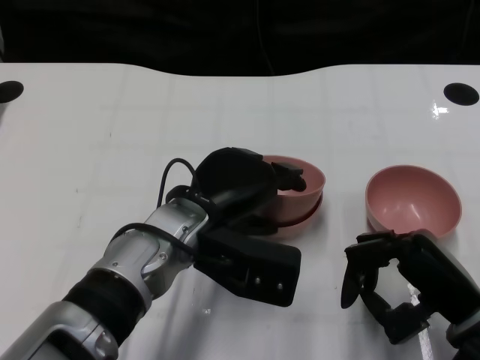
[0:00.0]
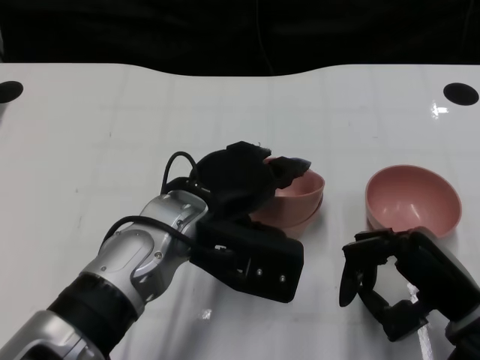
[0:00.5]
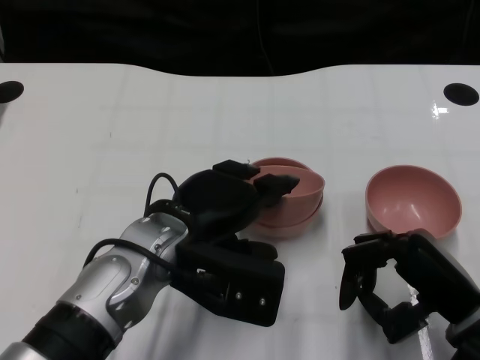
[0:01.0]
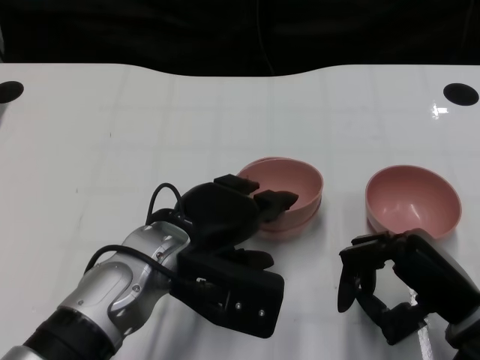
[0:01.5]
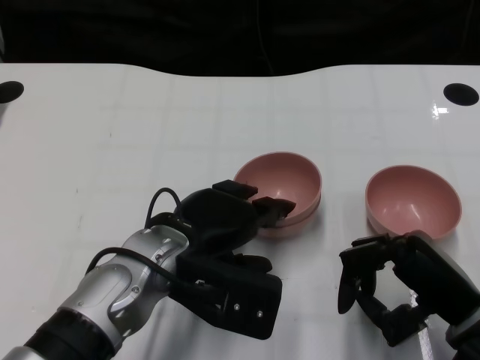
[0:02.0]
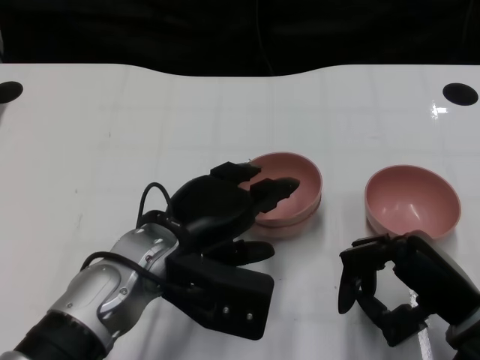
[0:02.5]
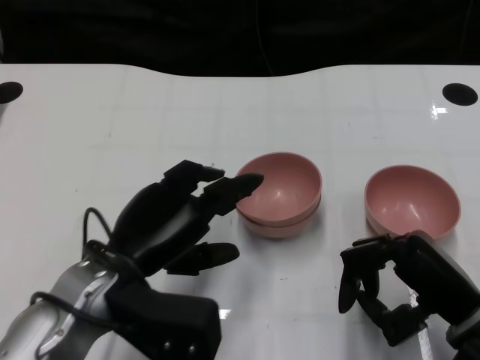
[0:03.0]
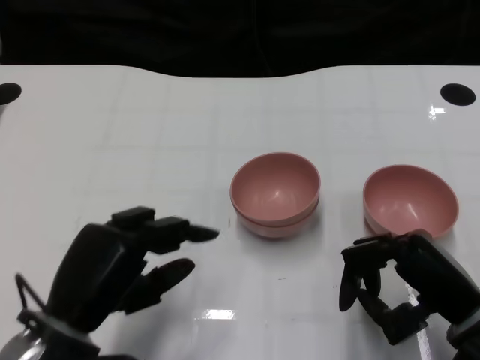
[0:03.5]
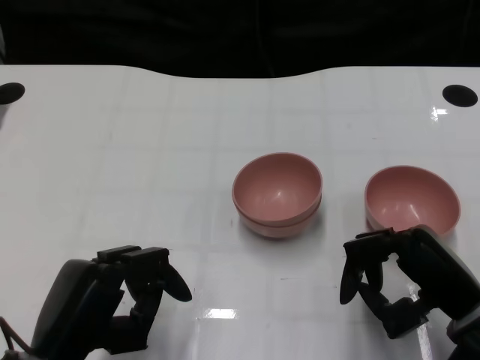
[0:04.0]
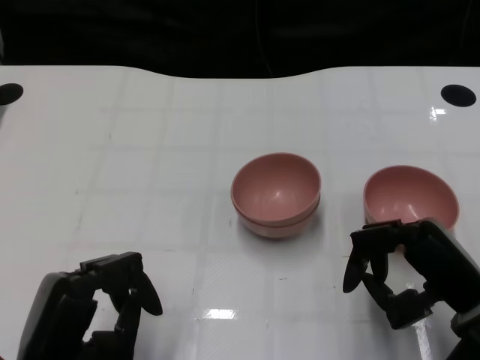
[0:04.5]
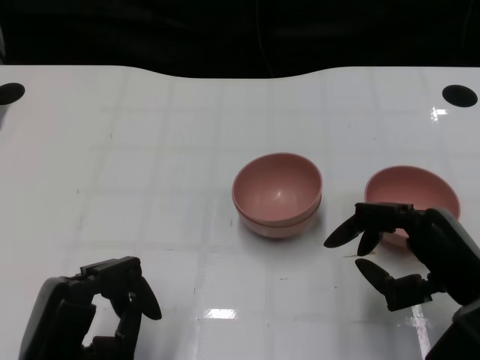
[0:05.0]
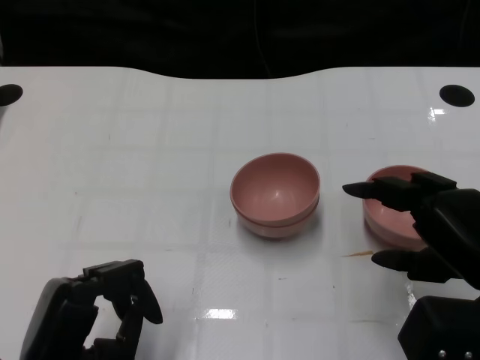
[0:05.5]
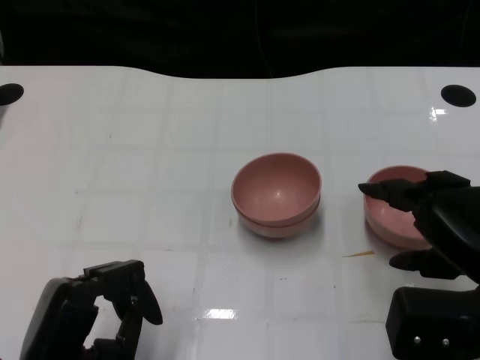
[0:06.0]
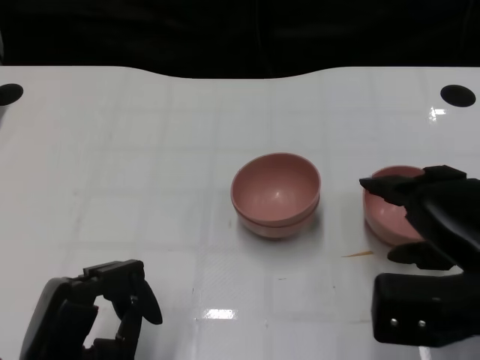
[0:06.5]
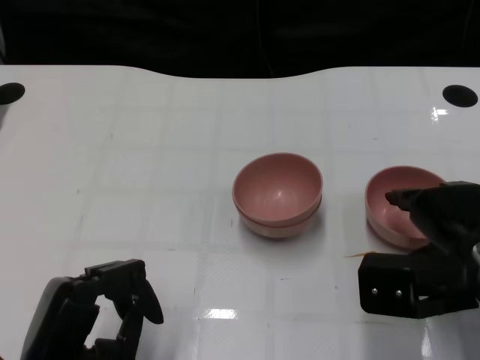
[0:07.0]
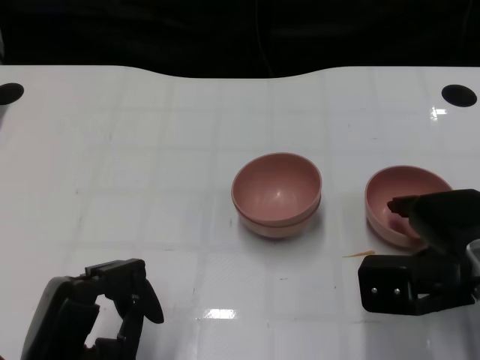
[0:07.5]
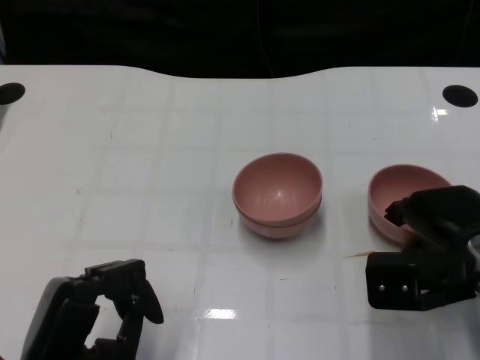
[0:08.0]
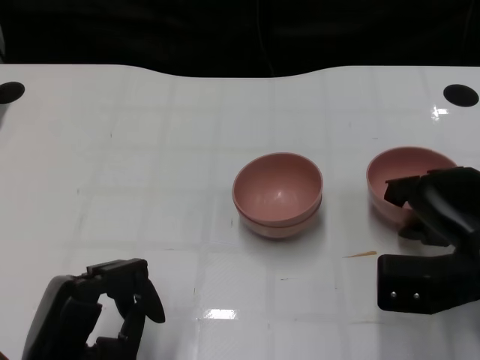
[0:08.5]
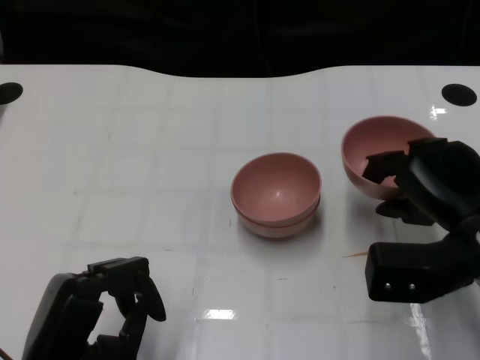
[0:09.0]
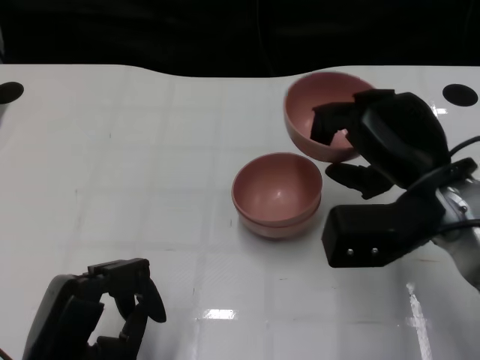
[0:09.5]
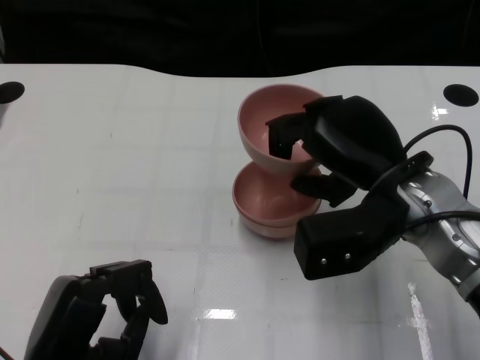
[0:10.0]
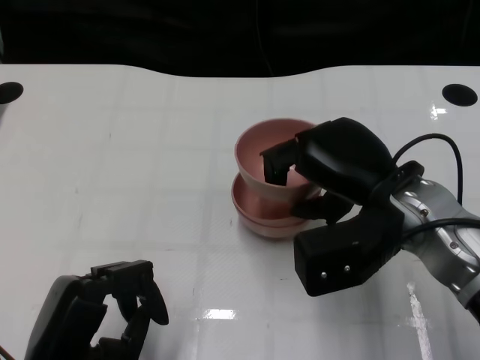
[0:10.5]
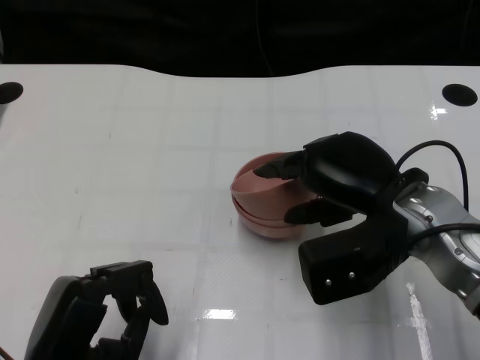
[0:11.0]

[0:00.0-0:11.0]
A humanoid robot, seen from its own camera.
Task of the whole recording: Pick up the bowl on one side of the table and place it on top of the middle bowl, then pick up the bowl on the other side of the table and place it on top of the middle bowls.
Step, 0:00.0 to 0:02.5: Place the bowl on the left onto the bowl in the middle with left gripper.
Step, 0:03.0 to 0:08.0: Grasp the bowl on the right with the right gripper.
0:00.0 to 0:02.0: The hands make only small movements.
0:02.0 to 0:03.5: The left hand goes some 10 cm to the left and backward.
0:03.5 to 0:05.5: The left hand shifts by some 5 cm, while the right hand moves upward, roughly 5 cm.
0:05.5 to 0:07.5: The right hand is displaced forward by some 5 cm.
0:09.0 to 0:11.0: The right hand is displaced to the left by about 5 cm.

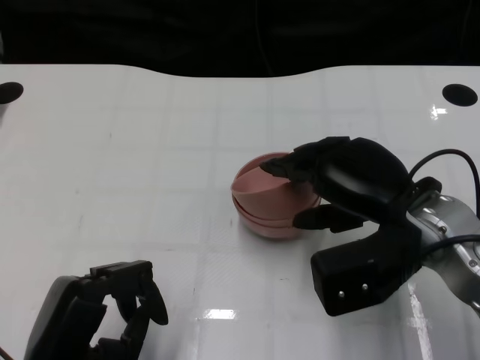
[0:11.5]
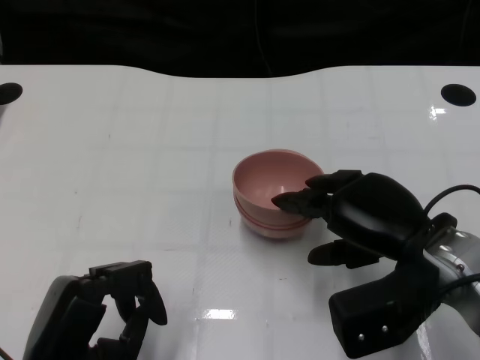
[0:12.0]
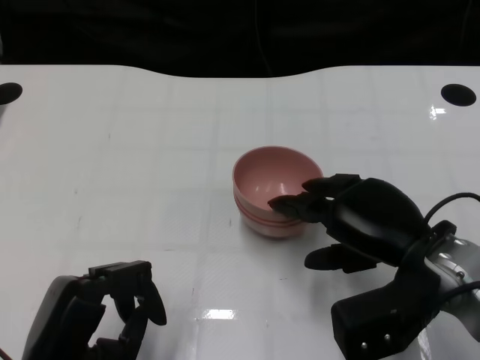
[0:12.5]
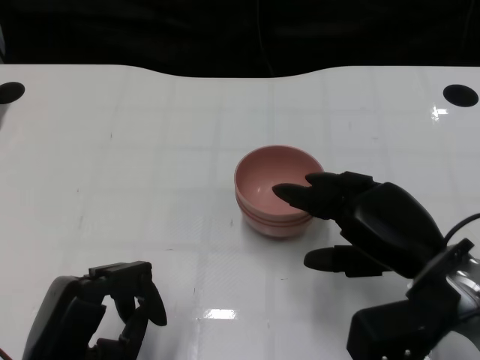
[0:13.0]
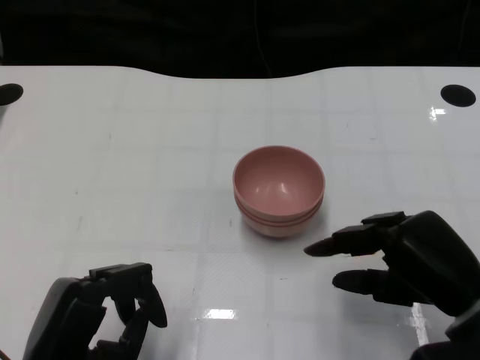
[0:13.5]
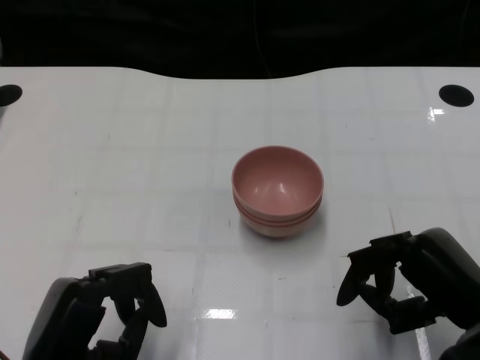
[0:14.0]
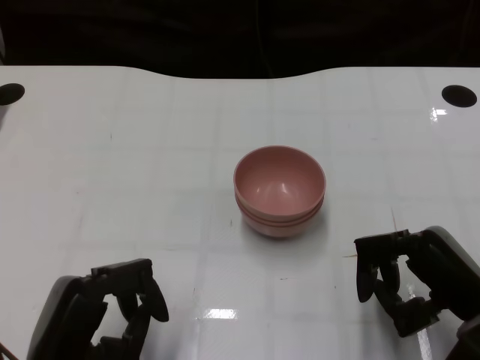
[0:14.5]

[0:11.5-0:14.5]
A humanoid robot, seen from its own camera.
Task of the whole recording: Pick up the bowl on one side of the table and place it on top of the middle bowl, then pick up the bowl on the other side of the table and place it on top of the middle bowls.
0:11.5 to 0:13.0: The right hand ends up roughly 5 cm from where it was.
0:13.0 to 0:14.5: The right hand shifts by some 5 cm.

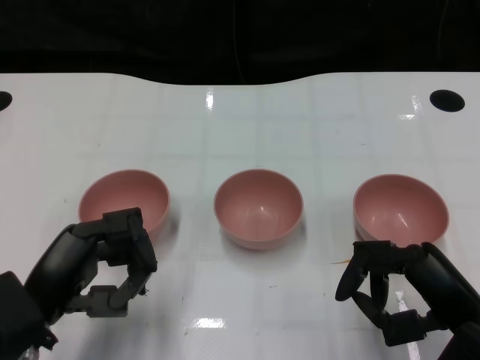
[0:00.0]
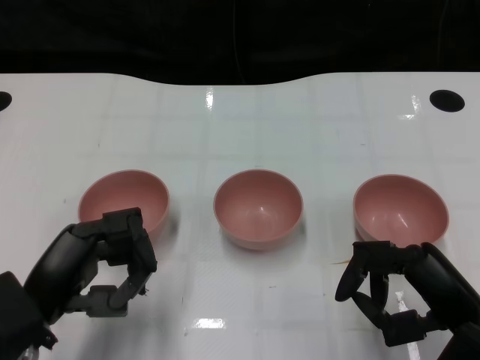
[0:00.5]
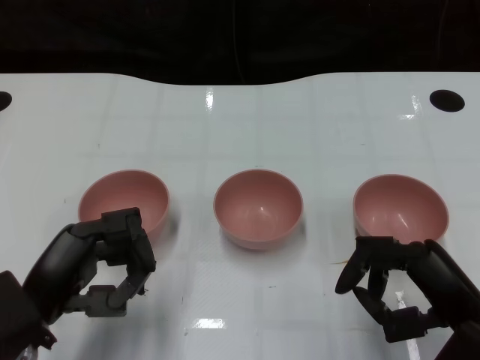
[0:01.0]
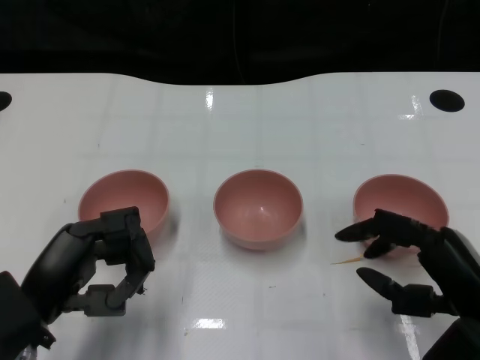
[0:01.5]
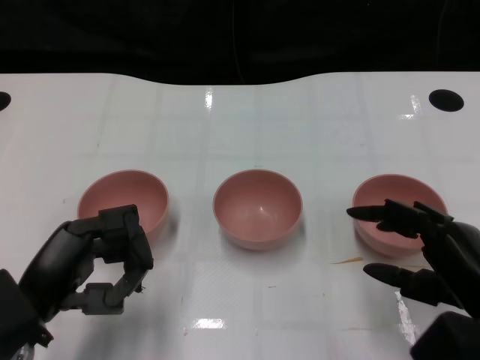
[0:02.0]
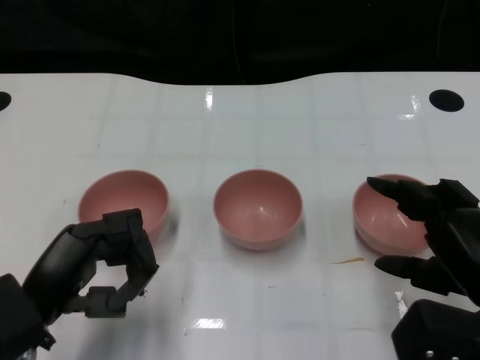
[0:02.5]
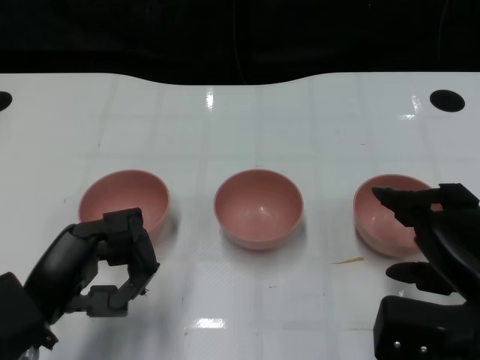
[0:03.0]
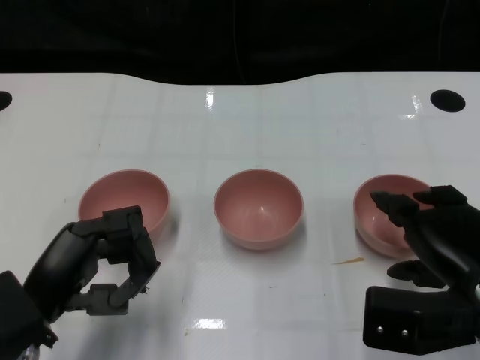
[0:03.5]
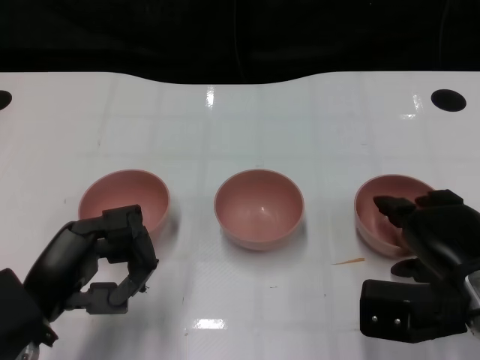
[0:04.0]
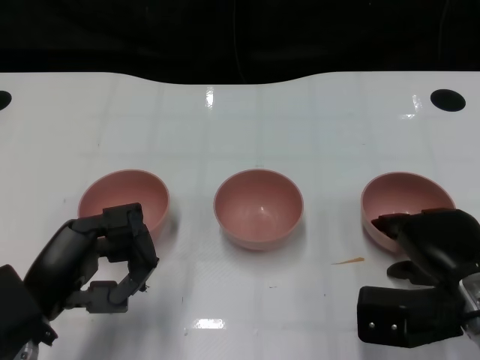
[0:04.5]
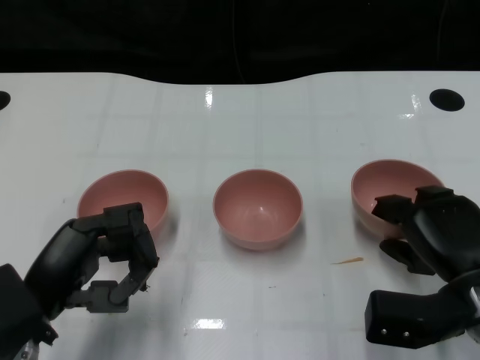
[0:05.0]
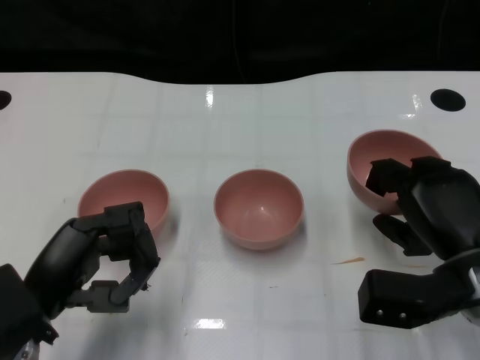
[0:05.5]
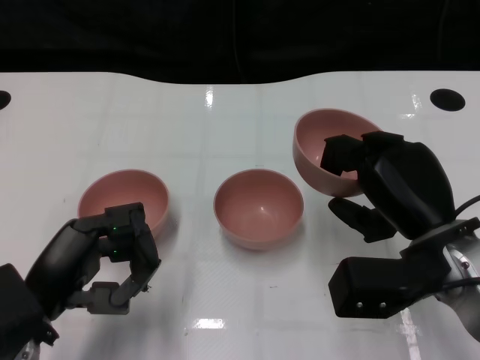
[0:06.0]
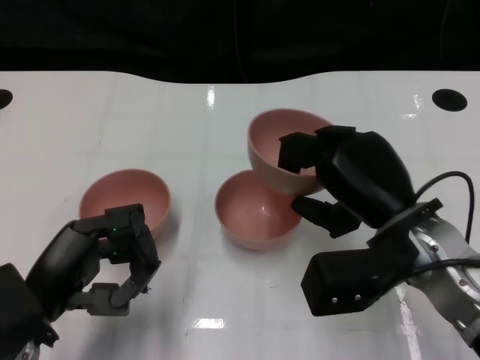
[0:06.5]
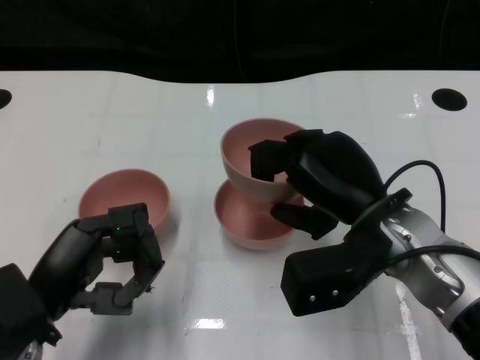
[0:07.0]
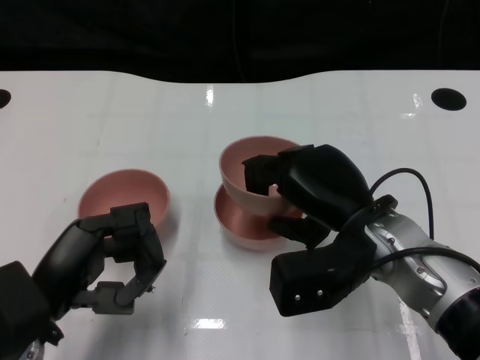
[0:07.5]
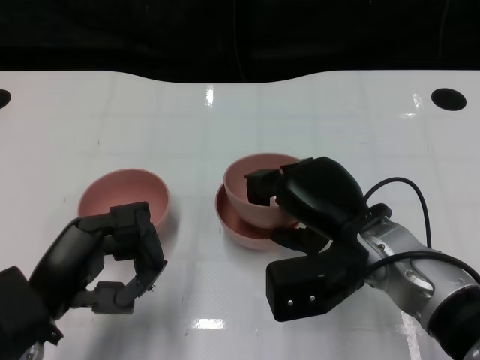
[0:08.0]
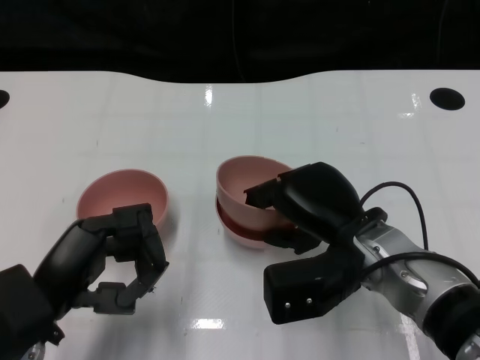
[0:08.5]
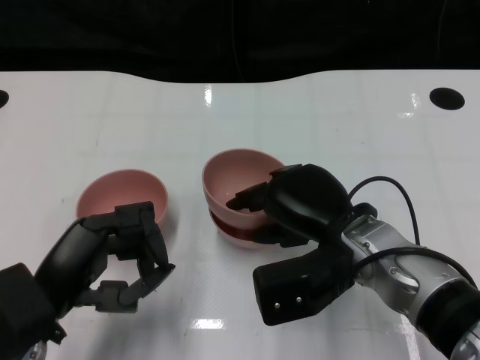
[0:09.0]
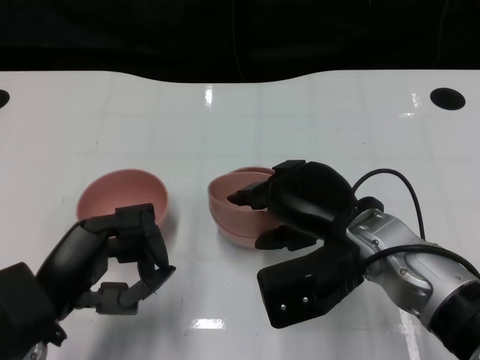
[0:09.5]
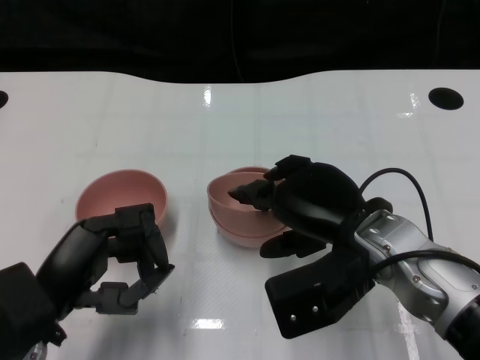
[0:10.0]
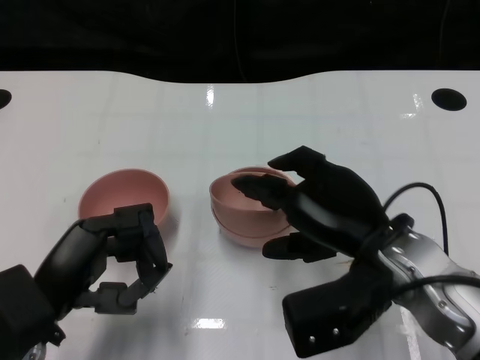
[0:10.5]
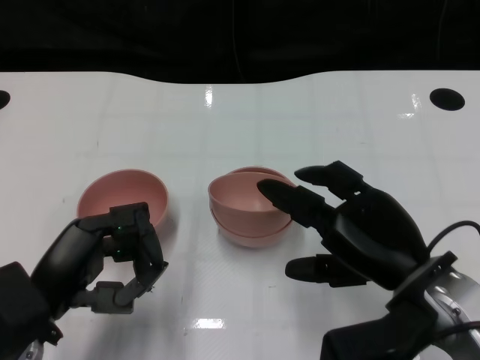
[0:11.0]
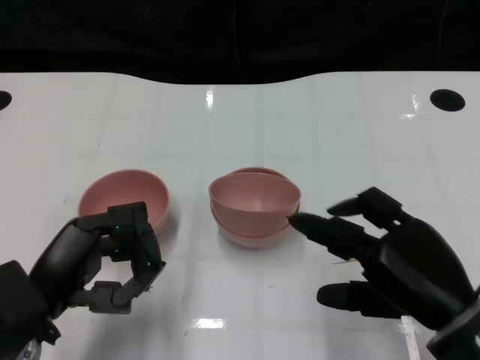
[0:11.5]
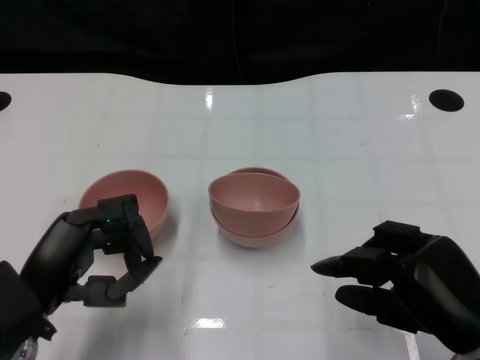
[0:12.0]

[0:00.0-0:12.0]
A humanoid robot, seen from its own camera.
Task of the whole recording: Pick up the bowl on one side of the table and place it on top of the middle bowl, then pick up the bowl on the other side of the table and place it on top of the middle bowls.
Step, 0:01.0 to 0:04.5: Grasp the bowl on the right with the right gripper.
Step, 0:05.5 to 0:10.5: Place the bowl on the right onto the bowl in the middle with right gripper.
0:02.0 to 0:04.0: The right hand shifts some 5 cm forward.
0:04.0 to 0:06.0: The right hand moves about 5 cm.
0:06.0 to 0:08.0: The right hand travels to the left by some 5 cm.
0:08.0 to 0:10.0: The hands move only a little.
0:10.0 to 0:12.0: The right hand goes some 15 cm backward and to the right.
